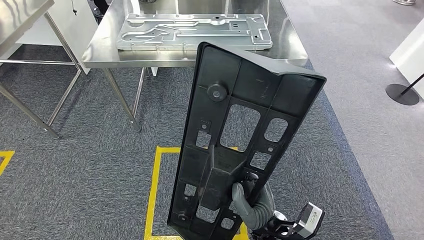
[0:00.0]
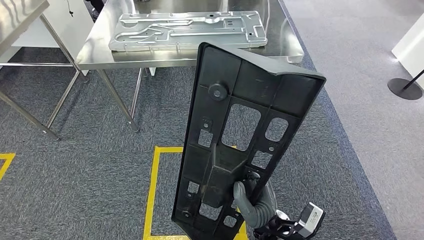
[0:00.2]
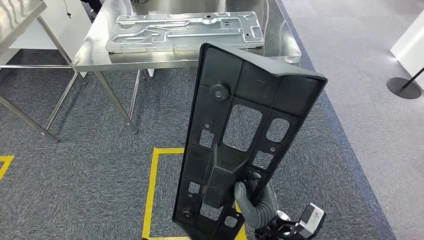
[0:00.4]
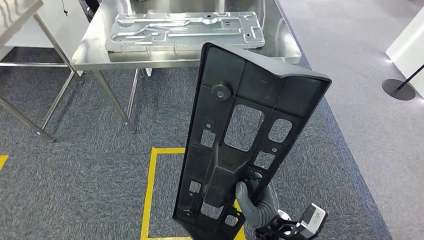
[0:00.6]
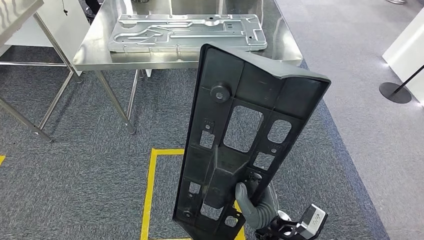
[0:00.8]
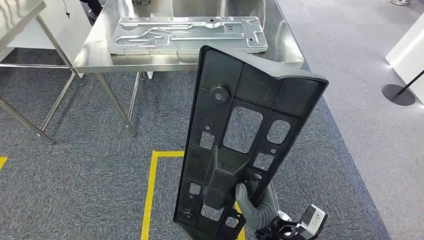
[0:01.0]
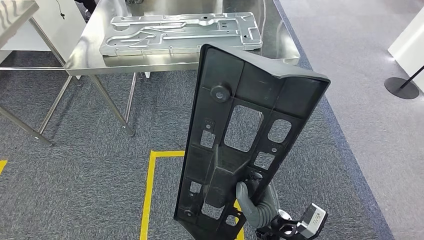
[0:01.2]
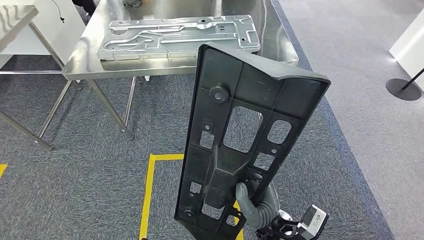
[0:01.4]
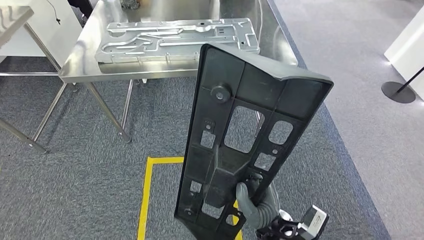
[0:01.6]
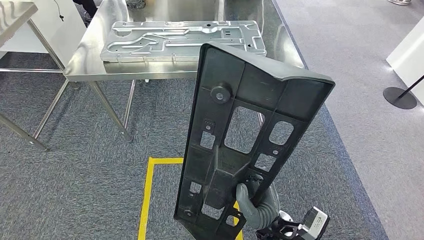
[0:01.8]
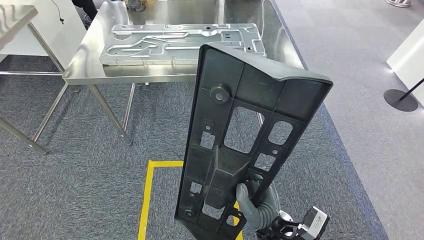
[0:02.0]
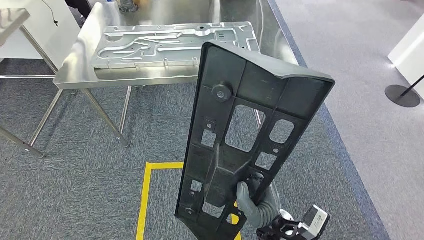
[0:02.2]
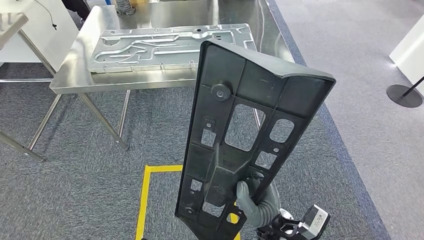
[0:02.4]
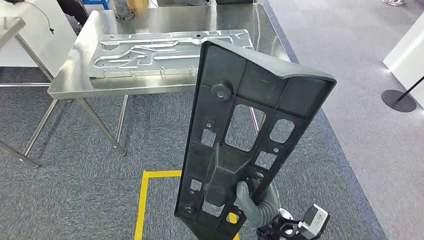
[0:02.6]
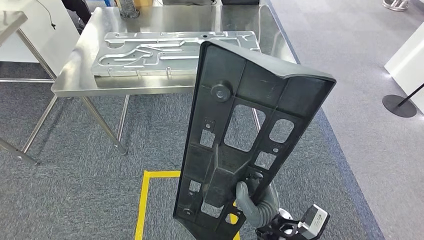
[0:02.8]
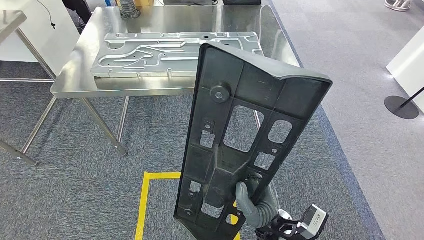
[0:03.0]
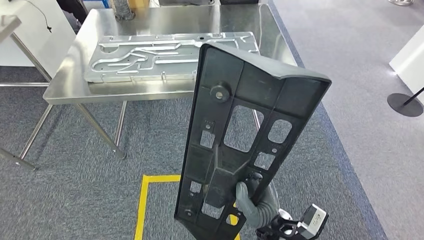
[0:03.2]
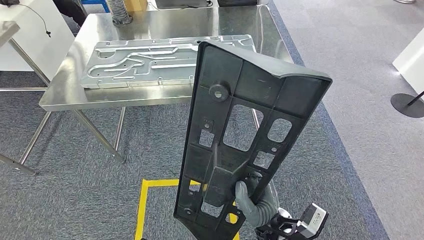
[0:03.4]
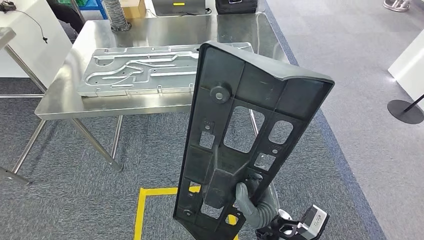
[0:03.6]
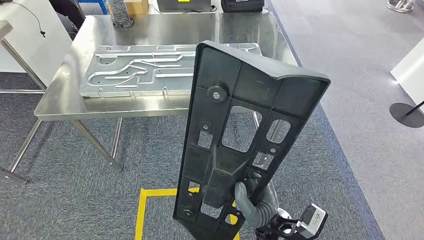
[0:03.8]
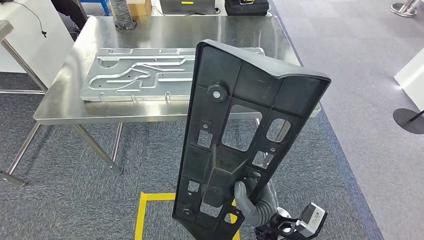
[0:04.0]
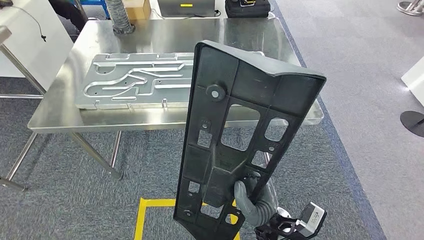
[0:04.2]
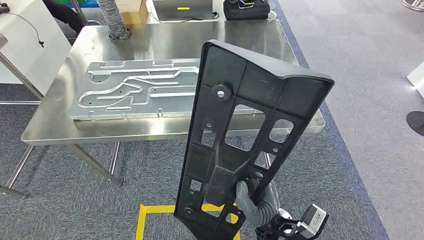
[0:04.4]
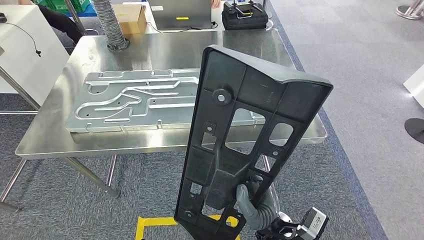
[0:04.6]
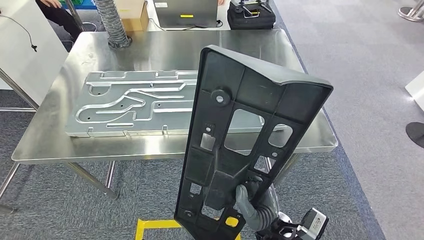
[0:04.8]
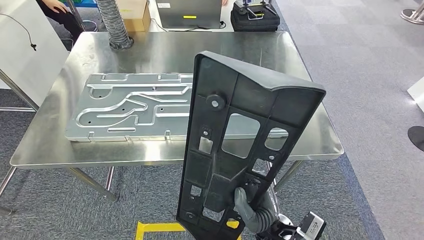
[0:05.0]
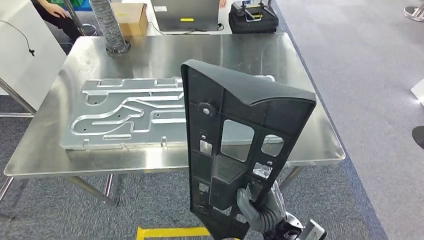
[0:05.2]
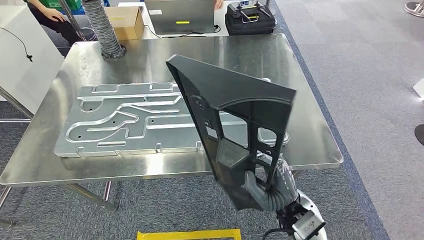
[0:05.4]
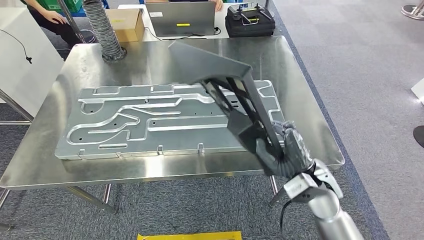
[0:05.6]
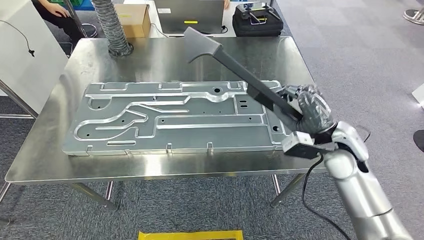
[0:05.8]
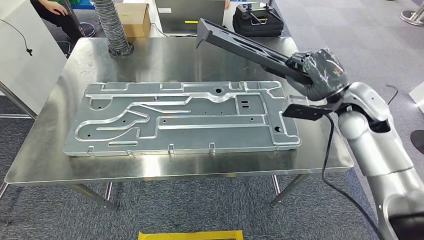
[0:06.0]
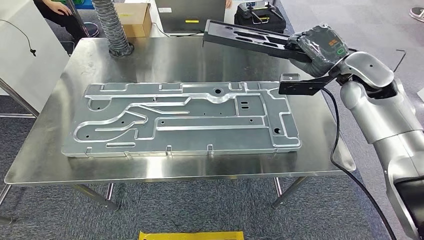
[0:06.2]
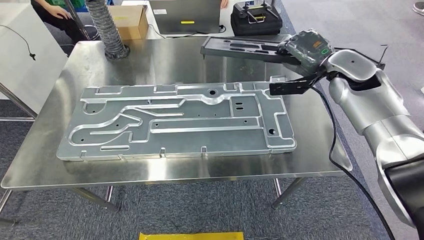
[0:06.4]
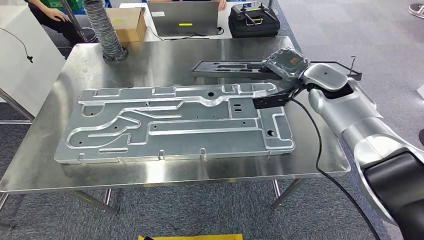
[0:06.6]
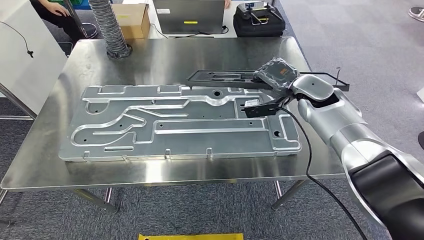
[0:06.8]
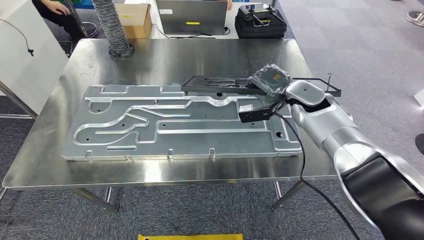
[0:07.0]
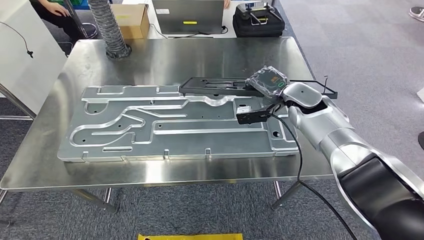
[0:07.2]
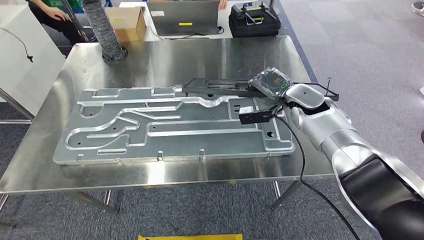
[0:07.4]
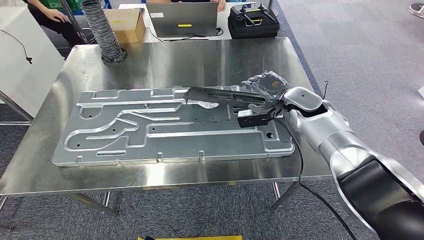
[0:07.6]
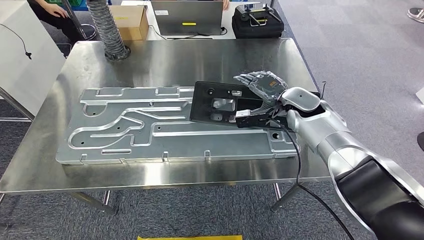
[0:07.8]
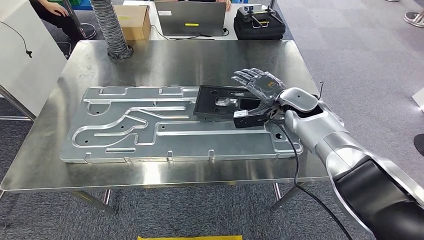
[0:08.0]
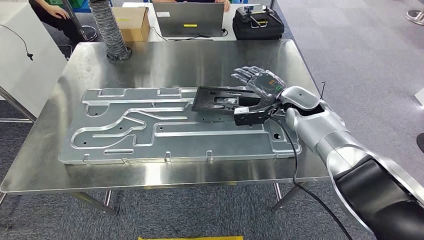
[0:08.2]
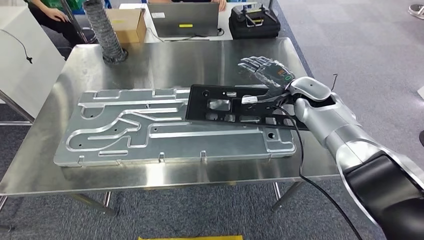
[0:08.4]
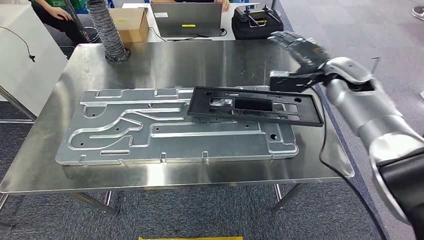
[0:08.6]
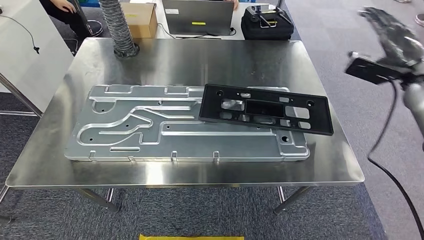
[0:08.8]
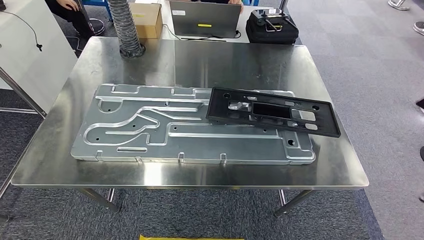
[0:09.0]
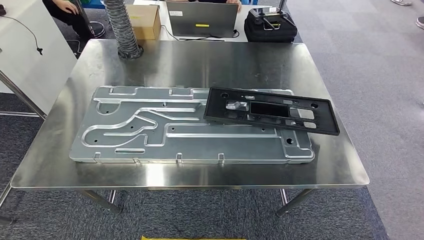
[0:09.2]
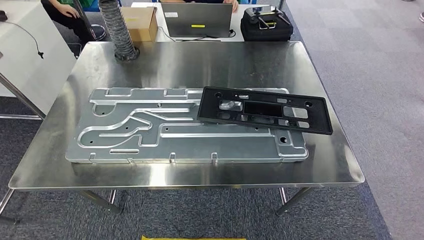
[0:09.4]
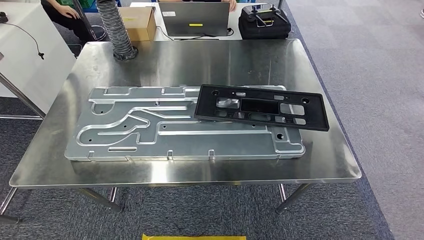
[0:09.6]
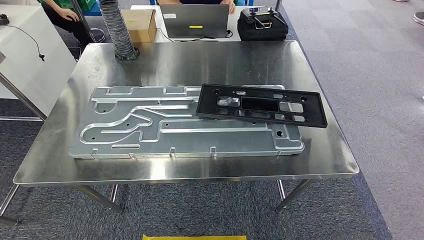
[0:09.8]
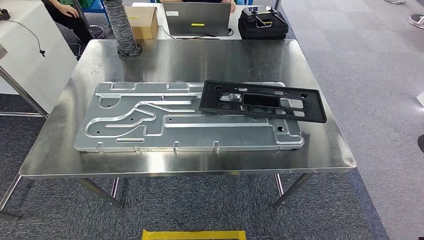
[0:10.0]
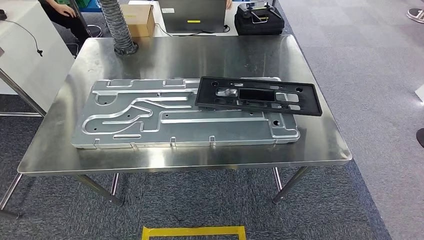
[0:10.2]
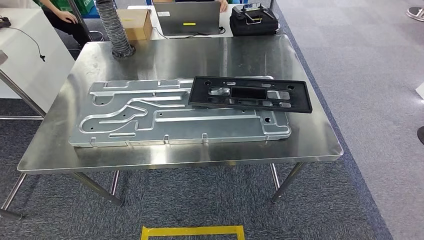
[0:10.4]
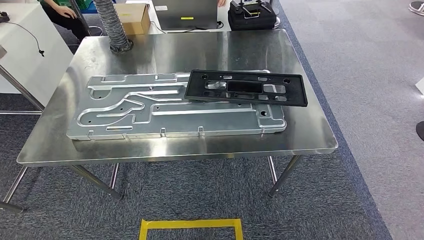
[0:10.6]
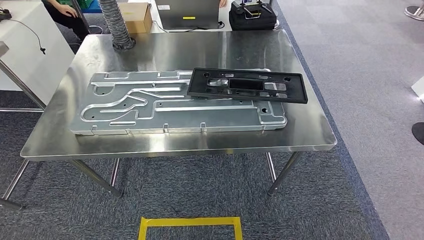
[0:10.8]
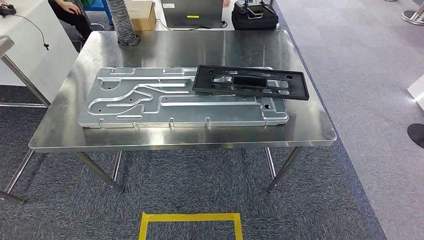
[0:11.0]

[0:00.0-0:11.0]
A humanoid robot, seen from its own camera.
Step, 0:00.0 to 0:05.6: Move the large parts to the workbench.
Step, 0:05.8 to 0:09.4: Insert the large parts into the corresponding slots on the workbench.
Step, 0:09.8 to 0:11.0: Return to the initial position at the shelf.
0:01.6 to 0:03.2: Both hands stay put.
